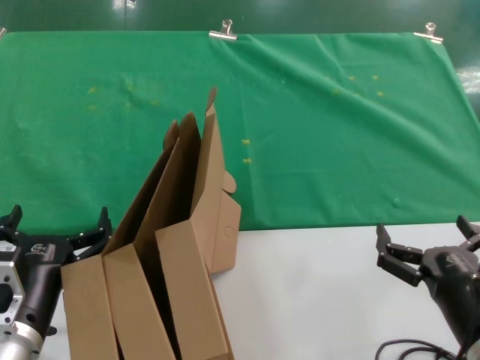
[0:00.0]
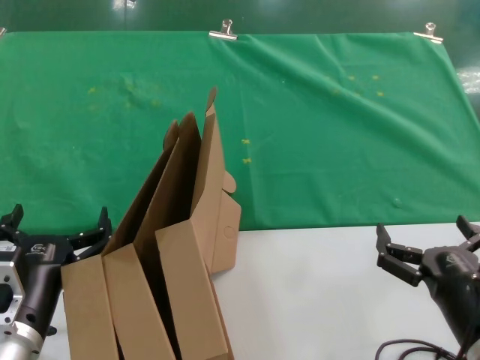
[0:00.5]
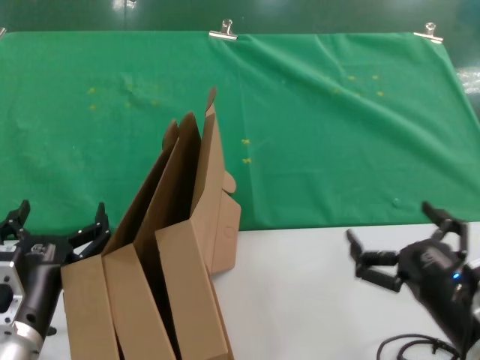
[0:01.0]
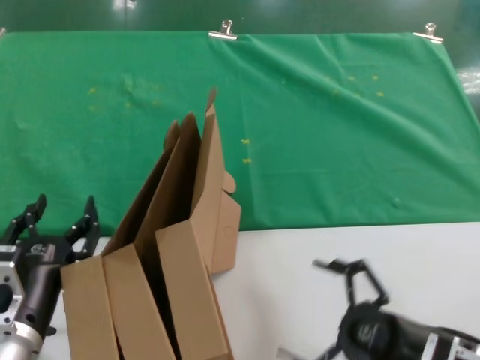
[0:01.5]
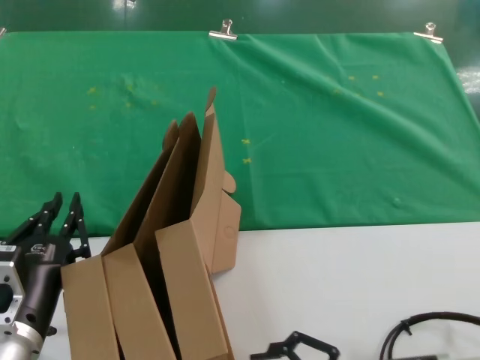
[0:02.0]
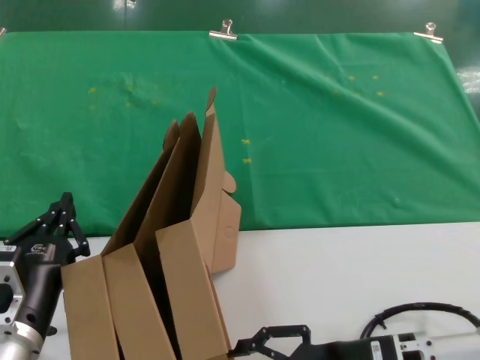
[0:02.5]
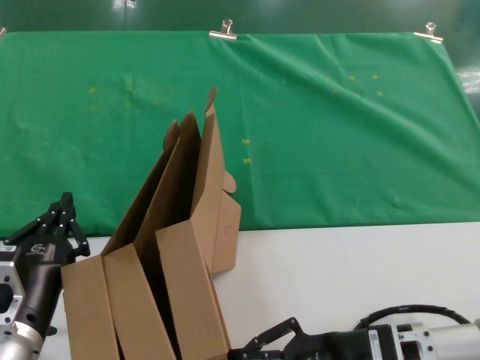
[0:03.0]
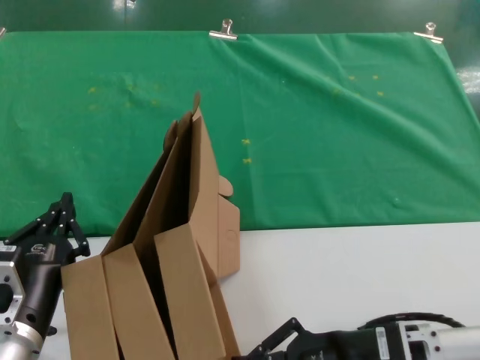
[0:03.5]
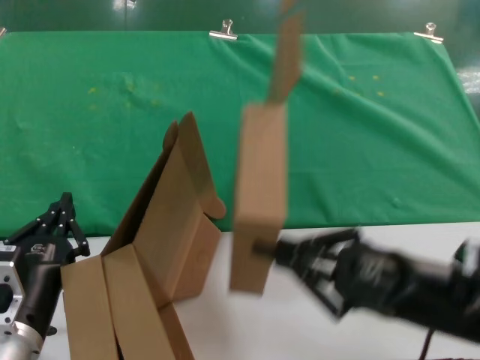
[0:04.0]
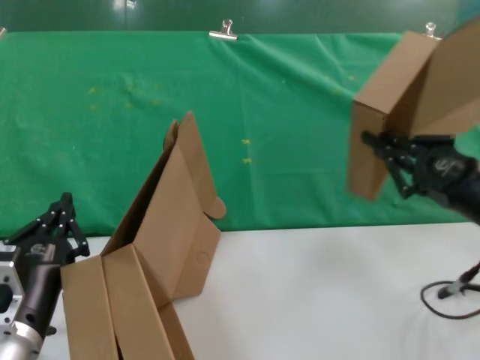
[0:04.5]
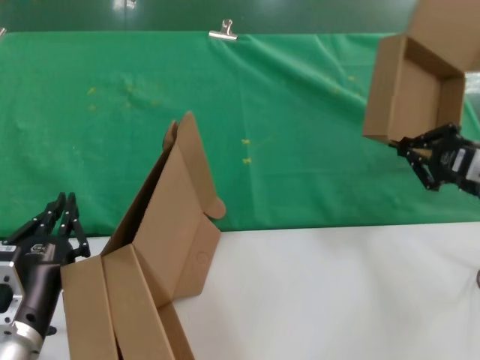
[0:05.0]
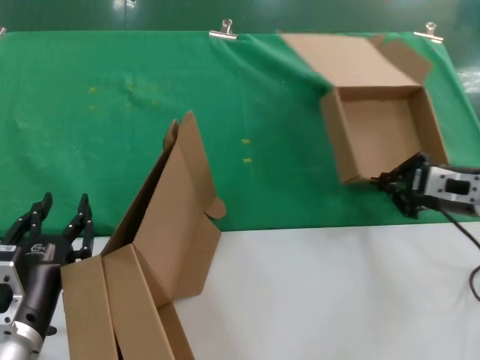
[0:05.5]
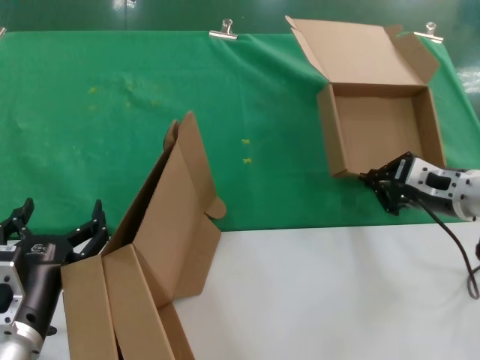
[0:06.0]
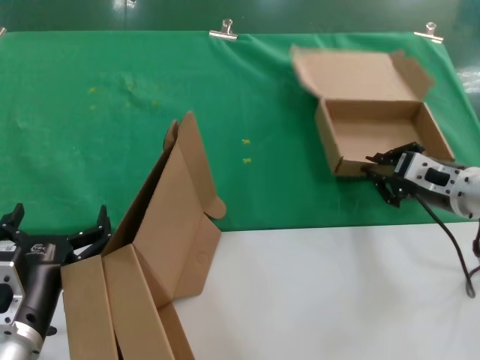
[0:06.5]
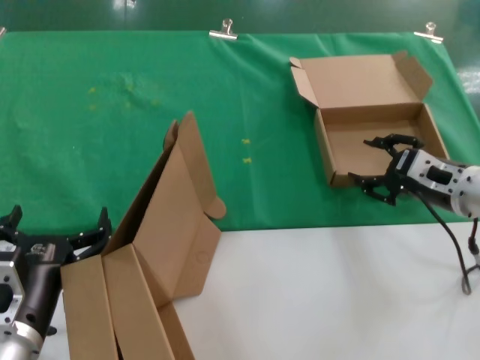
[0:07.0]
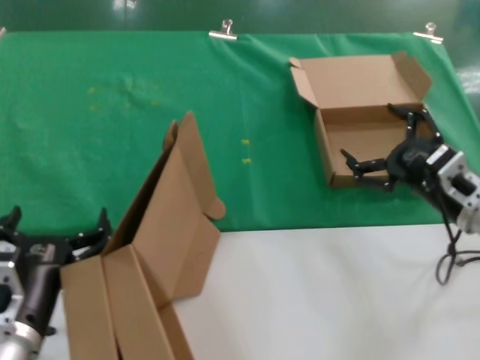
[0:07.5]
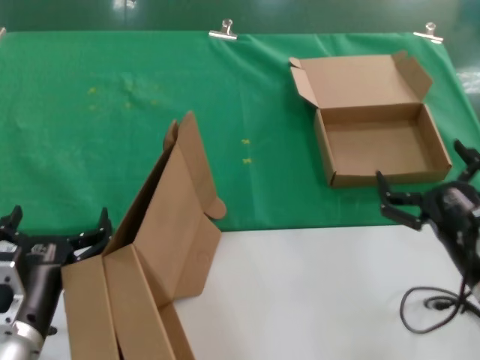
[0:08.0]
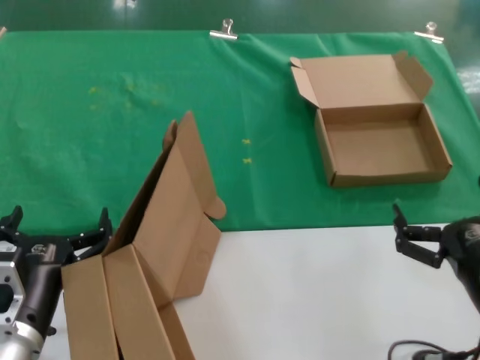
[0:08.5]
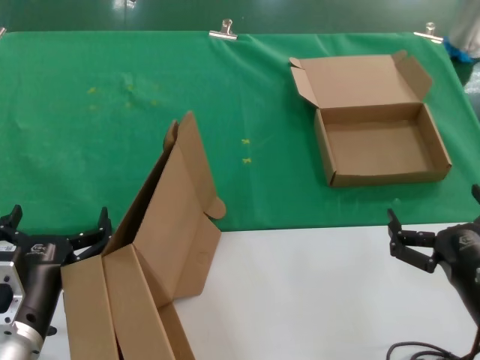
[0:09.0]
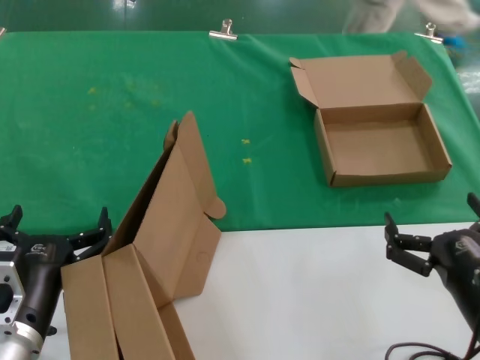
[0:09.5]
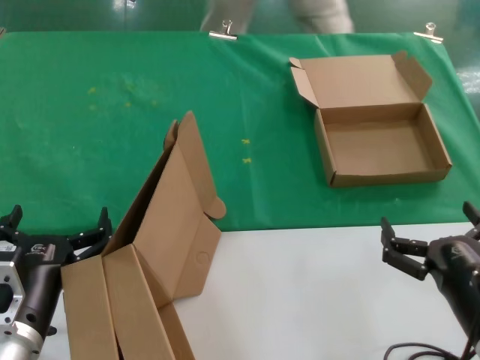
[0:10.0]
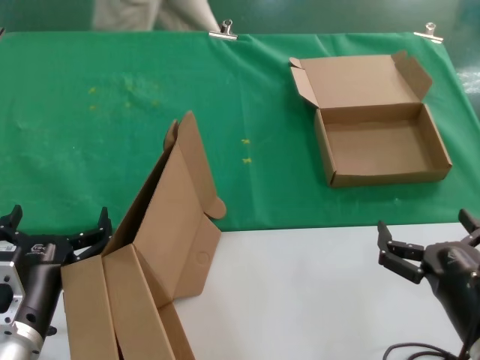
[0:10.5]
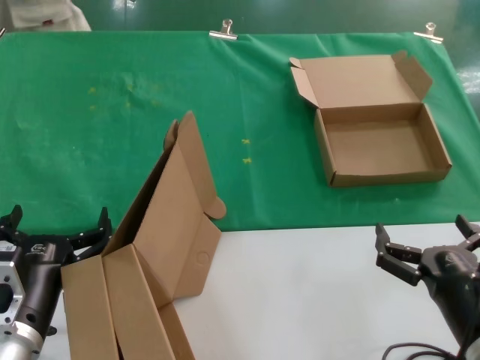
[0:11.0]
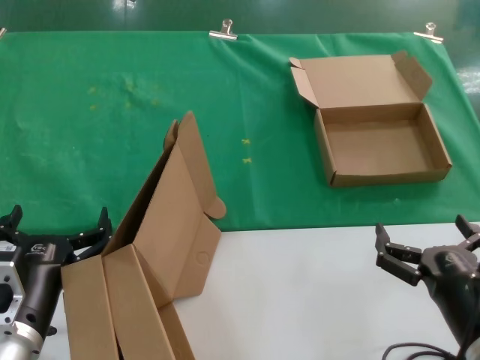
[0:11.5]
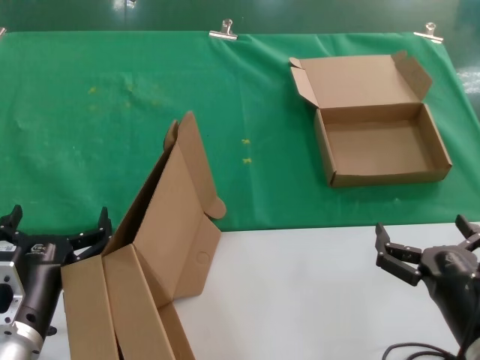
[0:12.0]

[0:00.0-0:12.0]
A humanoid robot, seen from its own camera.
Task of the whole recording: pick up the paper box and put it at the back.
Step, 0:00.0 to 0:03.0: Grasp the paper box.
Step, 0:03.5 to 0:06.5: Place the paper box on the table.
0:00.0 to 0:02.0: The right hand changes place by roughly 5 cm.
0:02.0 to 0:04.0: The right hand heads upward, covering about 10 cm.
0:04.0 to 0:06.0: The right hand goes some 20 cm forward.
0:06.0 to 0:08.0: The right hand moves backward and downward, some 15 cm.
0:08.0 to 0:10.0: The right hand moves backward, approximately 10 cm.
0:10.0 to 0:12.0: The hands move only a little.

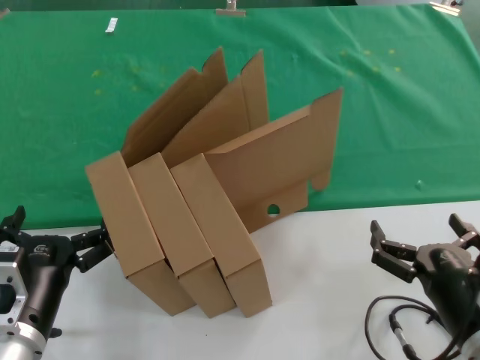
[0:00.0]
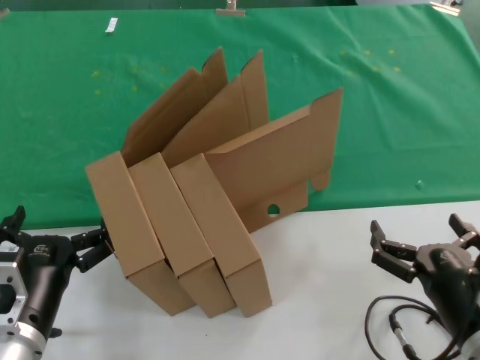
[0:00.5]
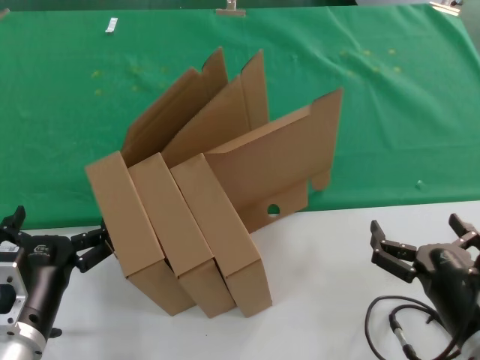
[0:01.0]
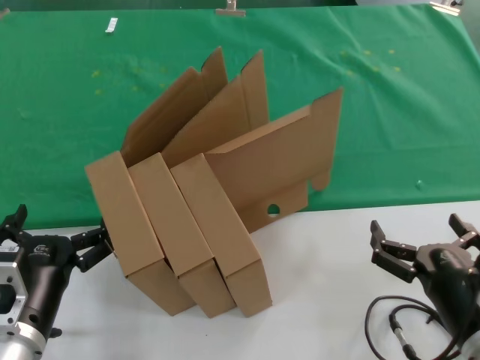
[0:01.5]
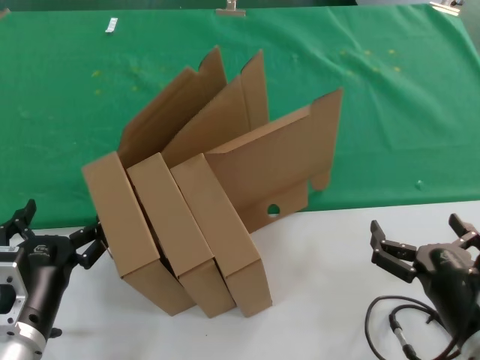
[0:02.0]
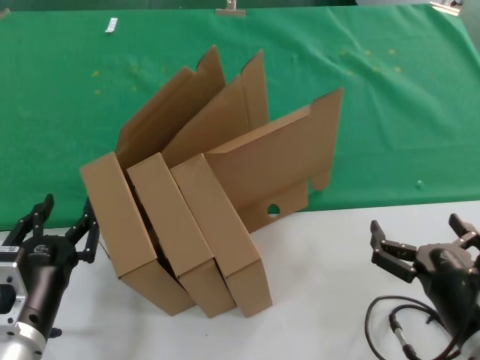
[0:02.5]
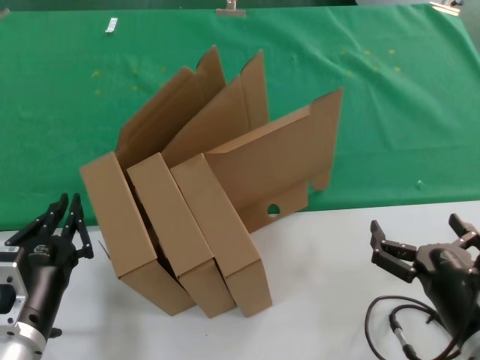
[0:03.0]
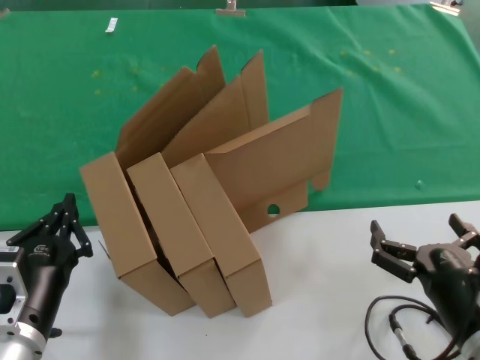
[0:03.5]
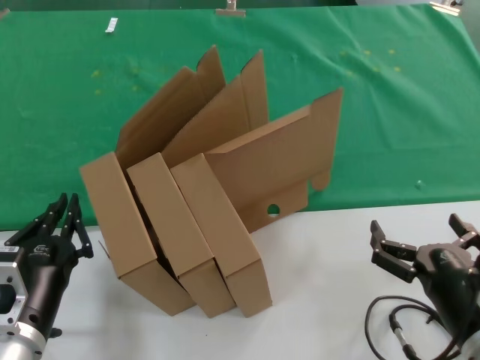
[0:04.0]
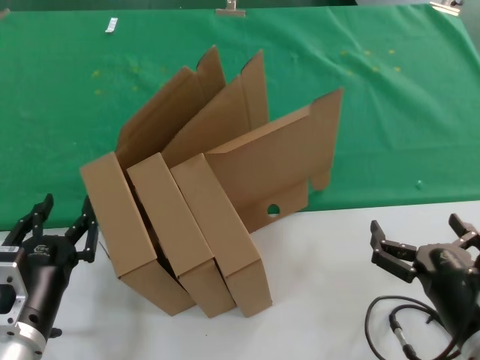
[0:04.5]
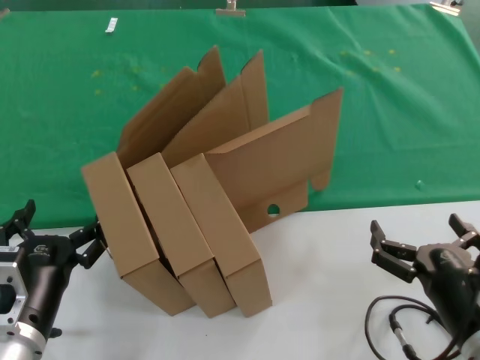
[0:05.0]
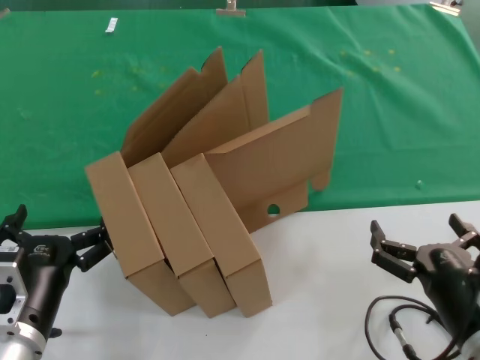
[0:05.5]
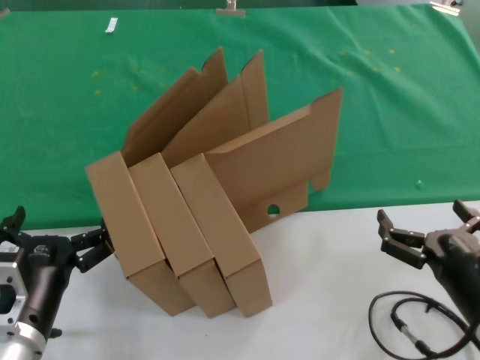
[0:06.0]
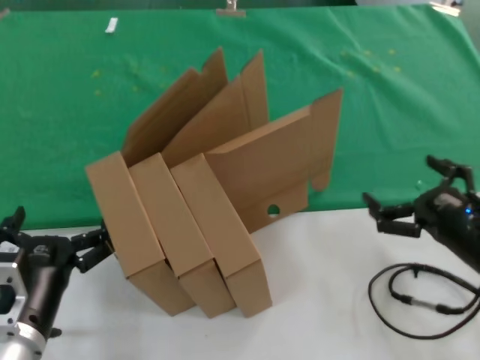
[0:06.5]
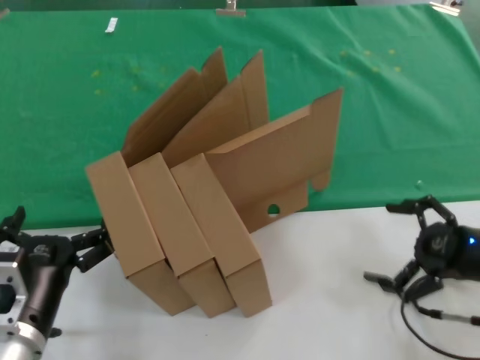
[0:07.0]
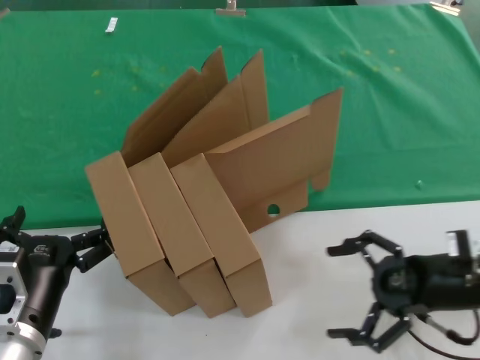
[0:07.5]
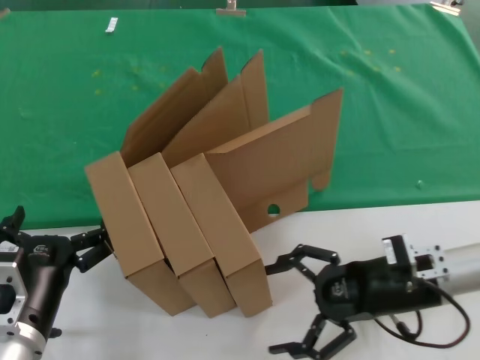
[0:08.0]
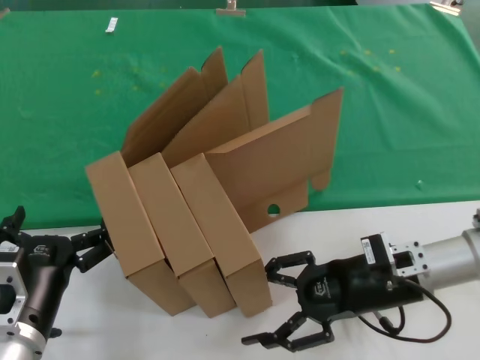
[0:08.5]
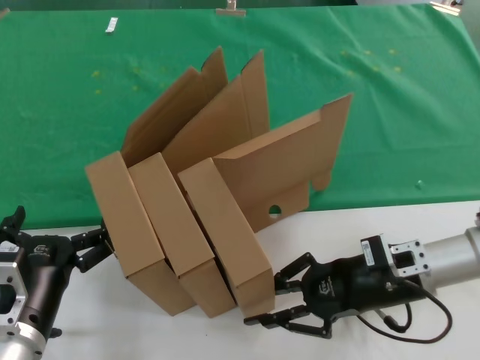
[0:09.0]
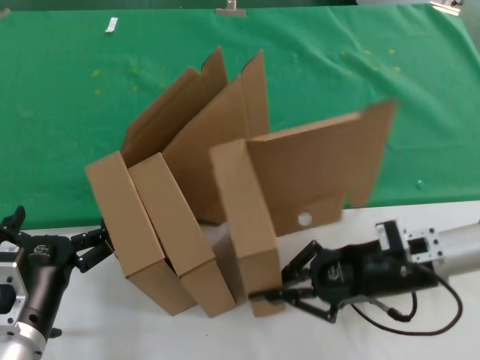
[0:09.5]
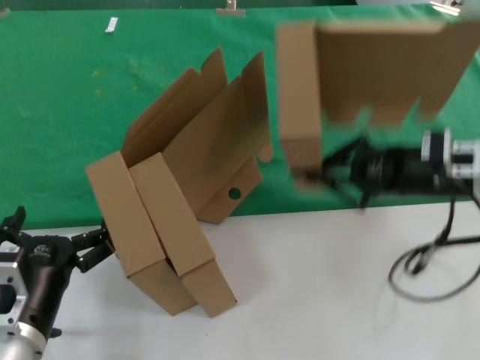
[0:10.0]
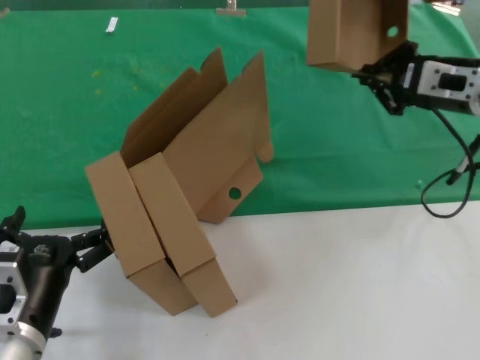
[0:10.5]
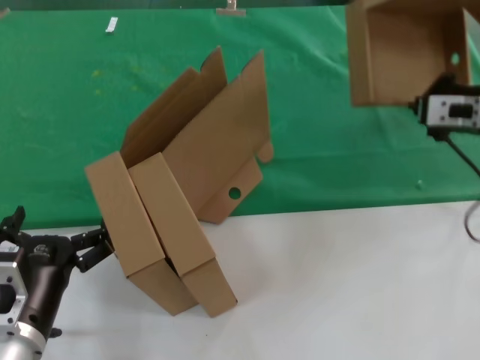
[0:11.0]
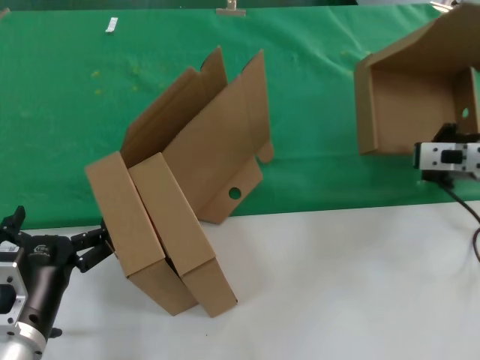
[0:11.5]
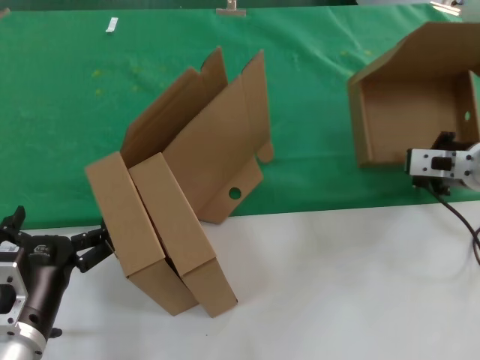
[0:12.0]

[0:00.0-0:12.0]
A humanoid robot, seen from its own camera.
Task of the whole recording: pick up the paper box and put it at the back.
Step, 0:00.0 to 0:09.5: Grasp the paper box.
0:00.0 to 0:04.0: Both hands stay put.
0:04.0 to 0:06.0: There are only small adjustments of the hands.
0:06.0 to 0:08.0: The right hand shifts about 15 cm forward.
0:08.0 to 0:10.0: The right hand shifts some 10 cm upward.
0:10.0 to 0:12.0: The right hand moves approximately 10 cm upward and comes back.

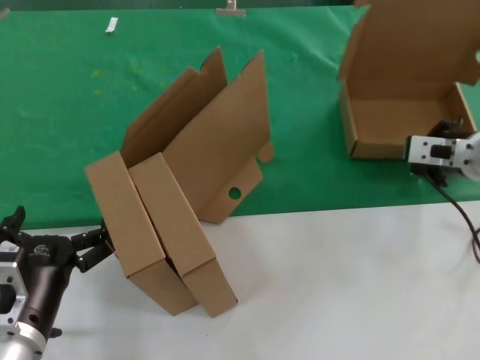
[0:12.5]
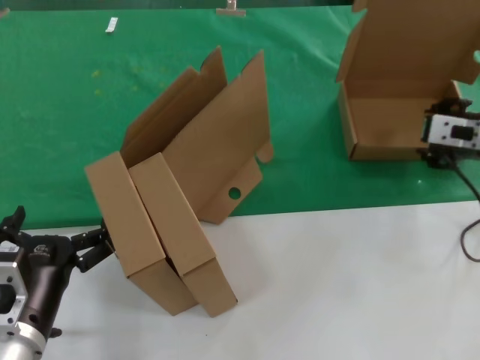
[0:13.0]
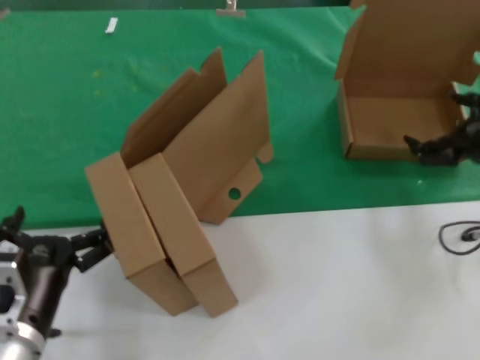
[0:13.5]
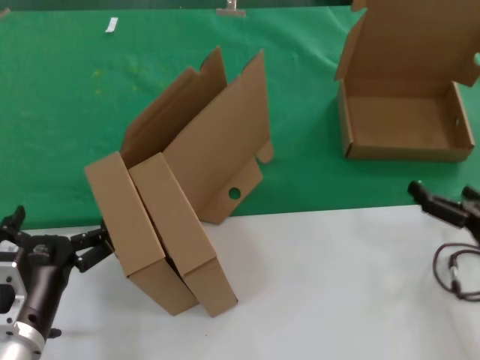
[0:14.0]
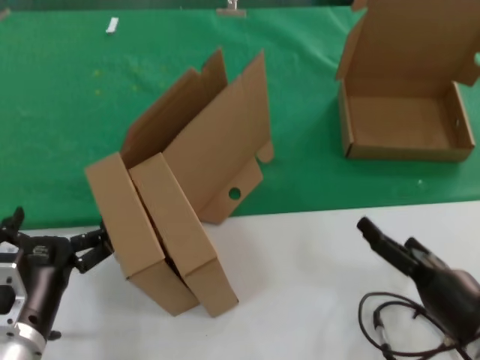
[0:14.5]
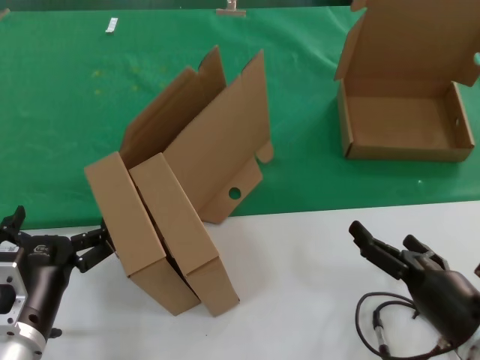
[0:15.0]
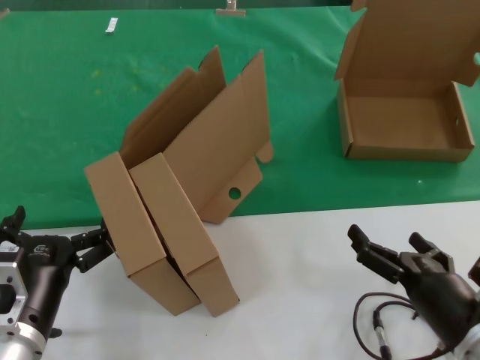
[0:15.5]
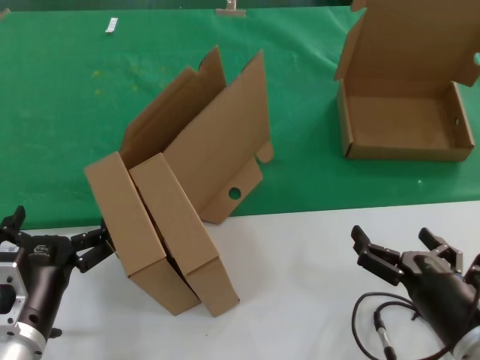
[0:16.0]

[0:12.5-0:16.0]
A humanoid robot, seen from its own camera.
Task of the whole recording: pick up the paper box and put it at the back.
0:12.5 to 0:14.5: The right hand travels backward and downward by approximately 25 cm.
